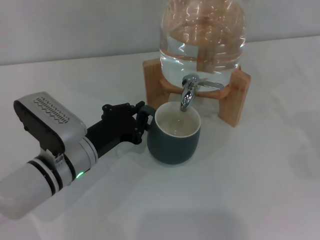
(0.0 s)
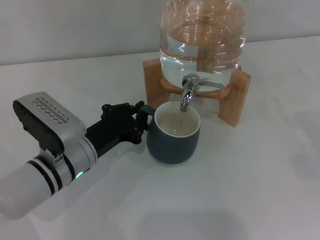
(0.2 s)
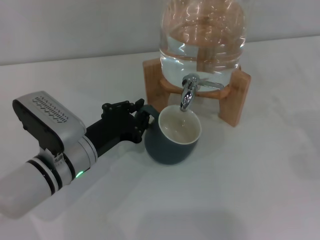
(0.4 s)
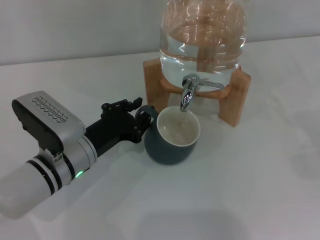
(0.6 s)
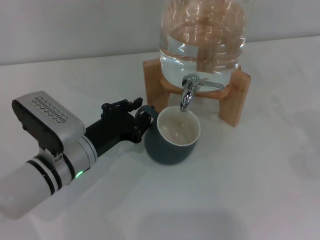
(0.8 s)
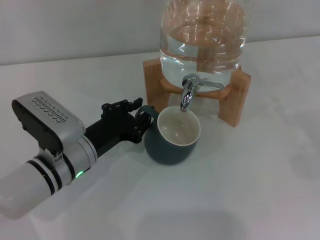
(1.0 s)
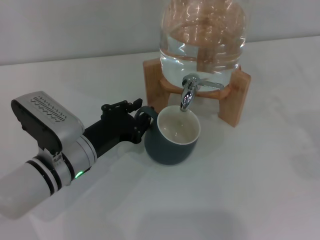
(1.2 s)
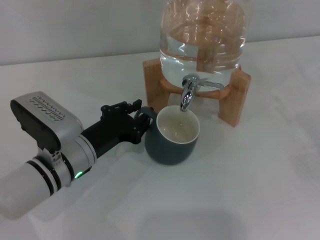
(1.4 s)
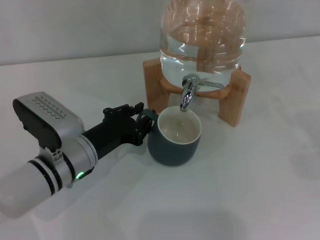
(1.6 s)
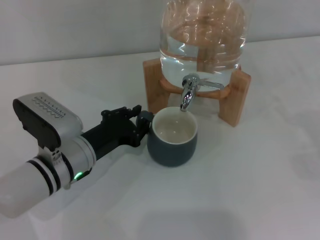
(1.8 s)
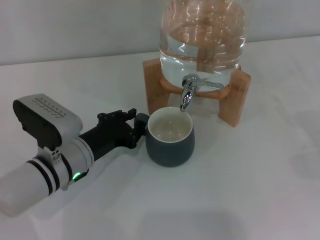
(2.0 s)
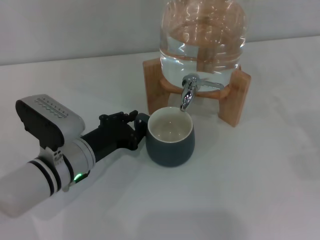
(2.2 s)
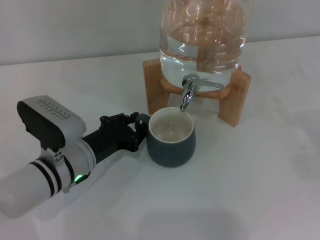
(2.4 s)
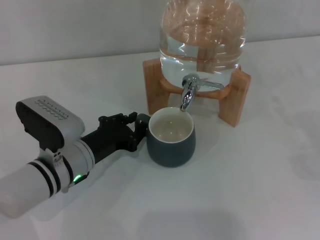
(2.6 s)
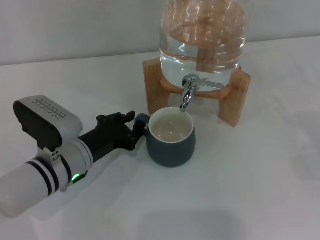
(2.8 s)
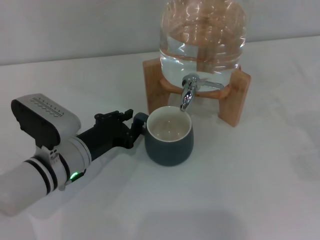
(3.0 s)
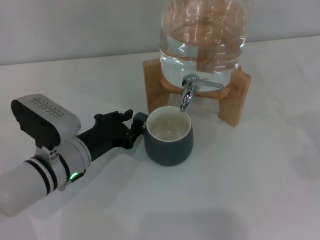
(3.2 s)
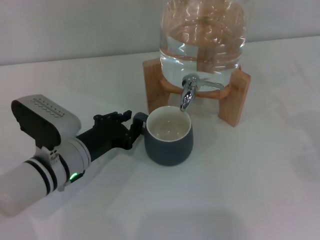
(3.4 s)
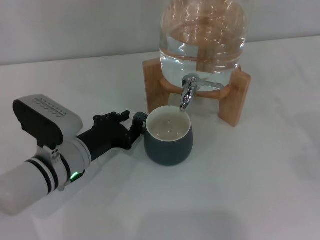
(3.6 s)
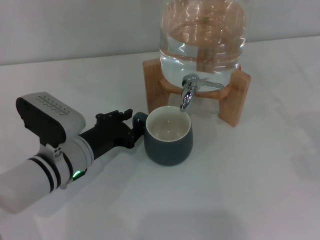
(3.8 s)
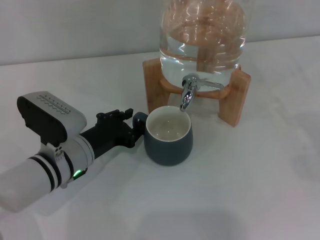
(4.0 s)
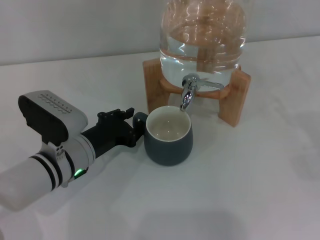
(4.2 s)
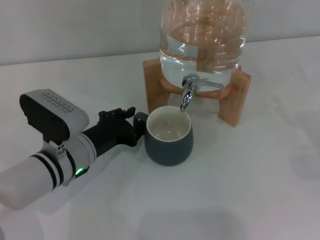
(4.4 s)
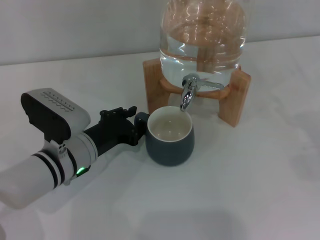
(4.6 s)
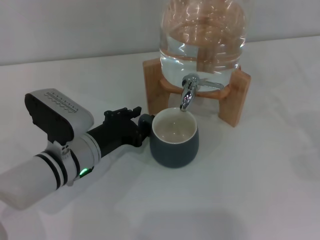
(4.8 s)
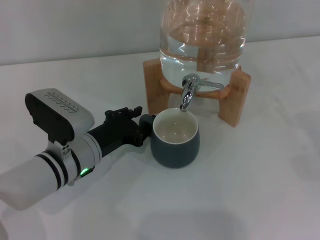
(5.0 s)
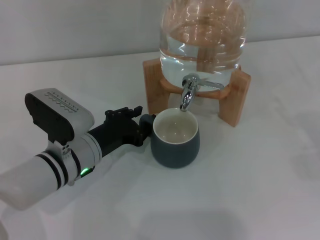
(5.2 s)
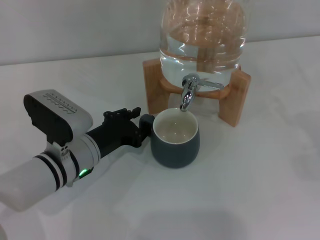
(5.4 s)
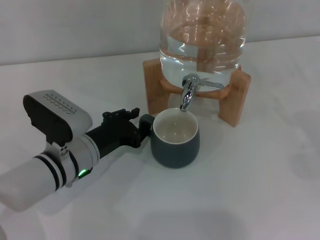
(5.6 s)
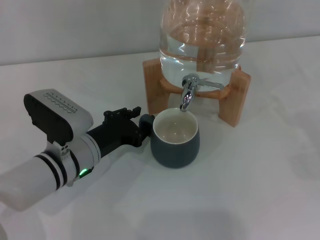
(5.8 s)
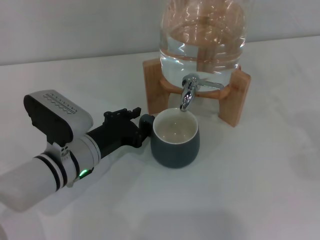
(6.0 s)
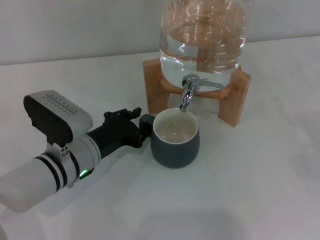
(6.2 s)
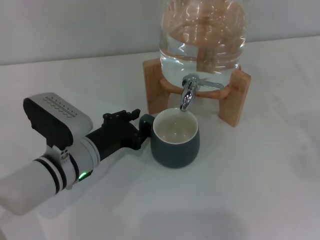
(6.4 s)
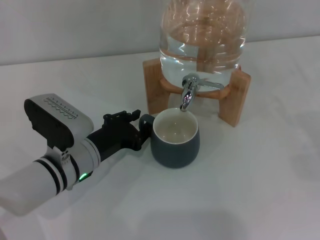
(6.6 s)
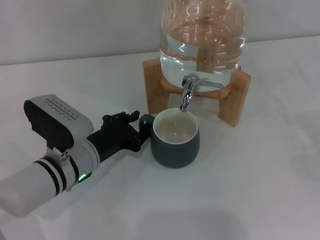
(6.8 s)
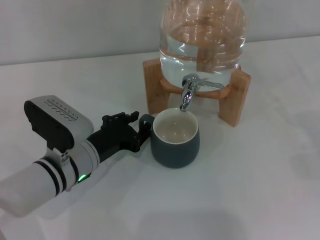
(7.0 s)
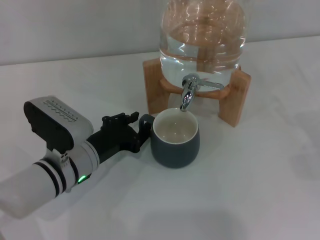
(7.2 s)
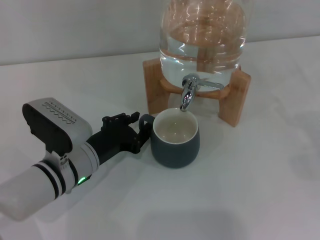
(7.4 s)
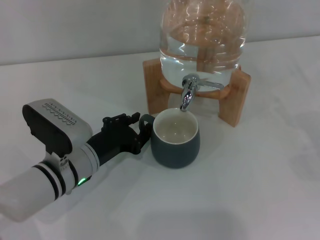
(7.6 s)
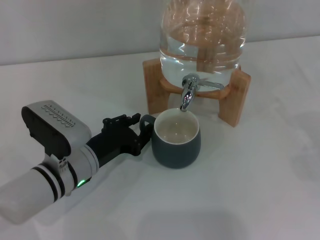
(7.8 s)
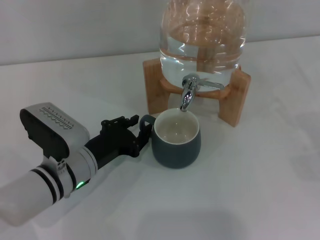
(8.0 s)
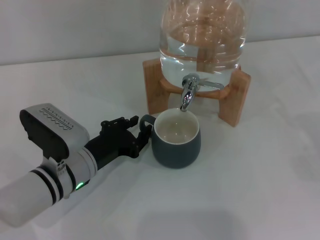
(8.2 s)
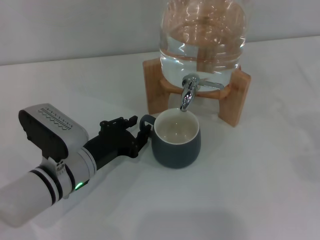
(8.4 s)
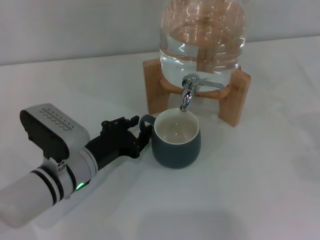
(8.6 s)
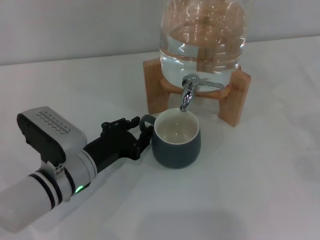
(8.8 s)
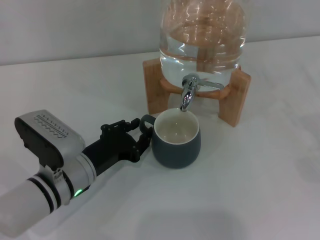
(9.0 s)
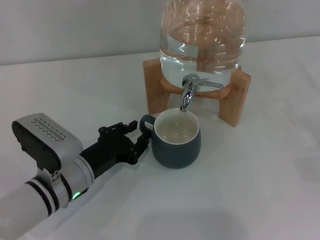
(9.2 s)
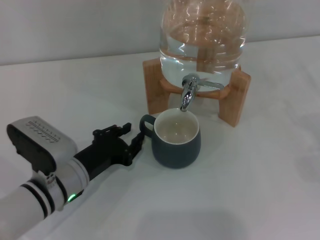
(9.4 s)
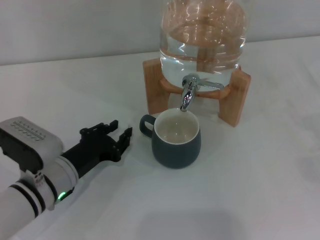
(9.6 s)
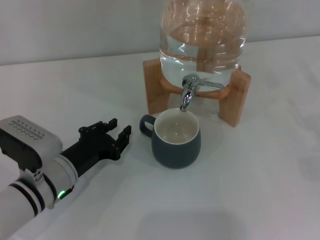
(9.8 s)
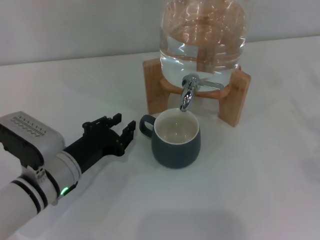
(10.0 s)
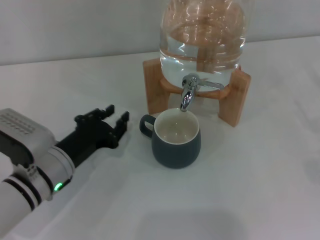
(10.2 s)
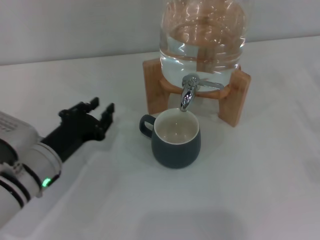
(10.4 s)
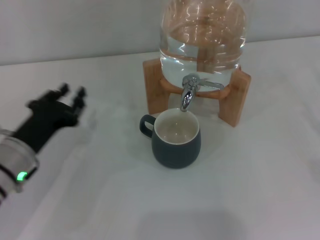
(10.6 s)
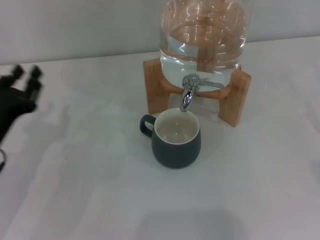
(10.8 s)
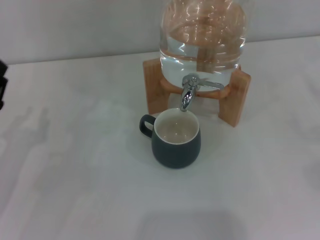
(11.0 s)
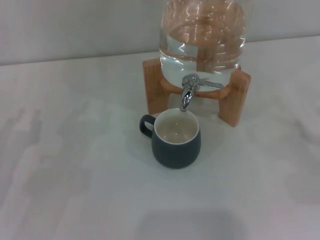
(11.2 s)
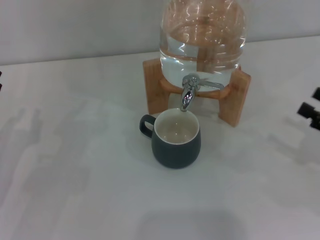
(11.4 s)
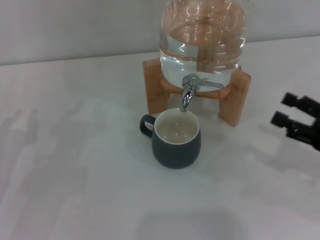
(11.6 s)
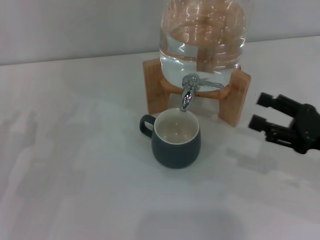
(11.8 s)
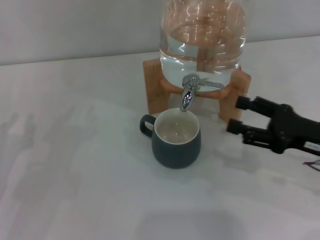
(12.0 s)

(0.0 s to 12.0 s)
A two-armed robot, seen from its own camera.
Task of the whole recording: the left gripper pick up the black cup and place it horizontally under the faucet, the right gripper turn on the faucet to fill the cup, and then turn off the faucet.
Step, 0.0 s - 10.2 s: Move the cup beneath the water dispenser nozzle with the left gripper.
0.0 s - 3.0 s: The grippers make only small movements.
3.0 s - 4.4 s: Both grippers stay about where they are.
4.4 s - 6.0 s: Both grippers stay put.
6.0 s - 7.6 s: Both grippers stay about where they are.
7.6 s - 10.4 s: The grippers make only small movements.
10.4 s - 12.0 s: Both grippers move to the left, approximately 15 cm.

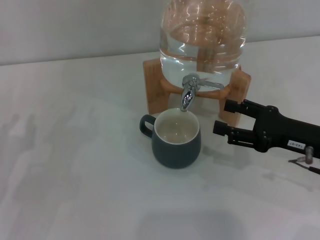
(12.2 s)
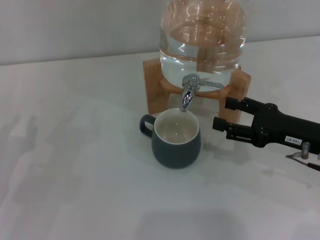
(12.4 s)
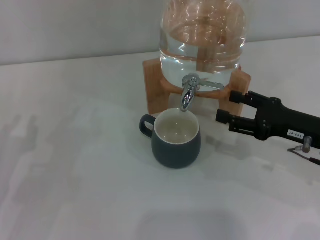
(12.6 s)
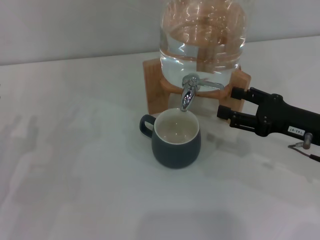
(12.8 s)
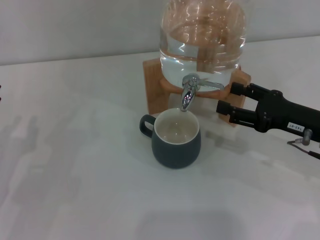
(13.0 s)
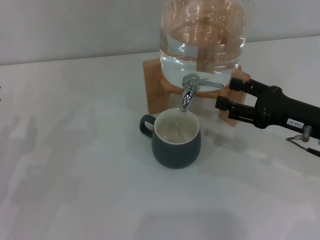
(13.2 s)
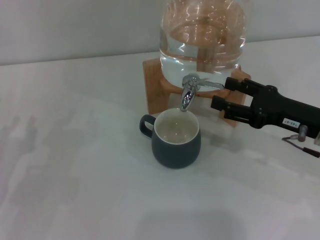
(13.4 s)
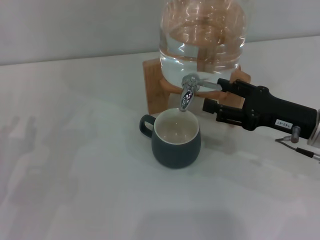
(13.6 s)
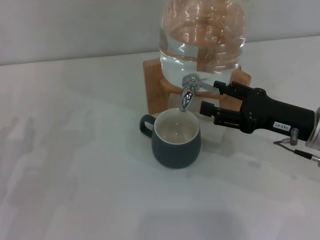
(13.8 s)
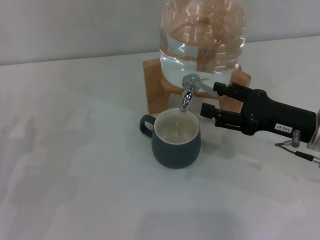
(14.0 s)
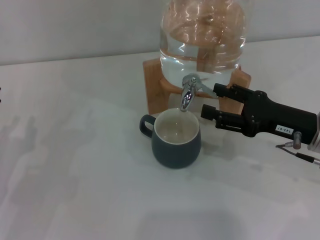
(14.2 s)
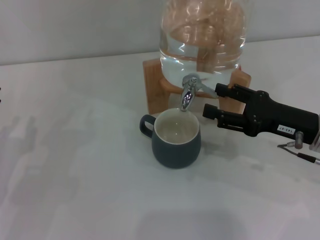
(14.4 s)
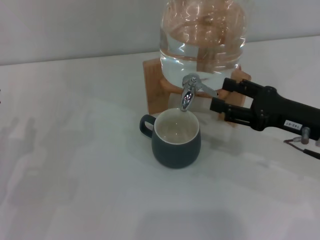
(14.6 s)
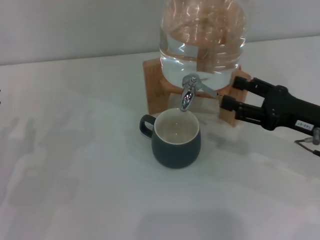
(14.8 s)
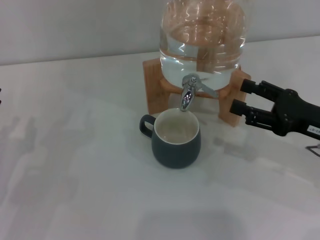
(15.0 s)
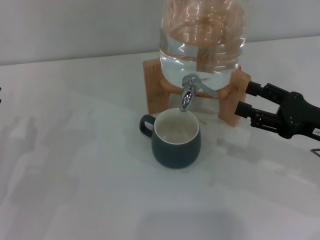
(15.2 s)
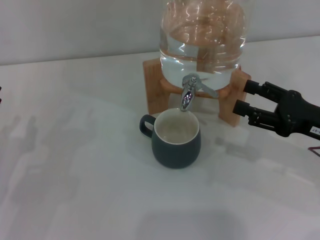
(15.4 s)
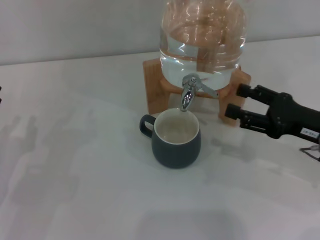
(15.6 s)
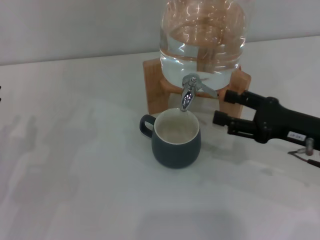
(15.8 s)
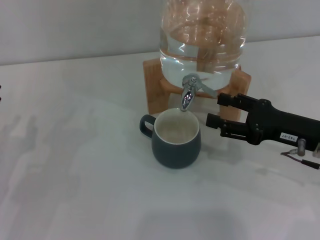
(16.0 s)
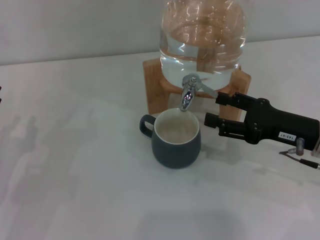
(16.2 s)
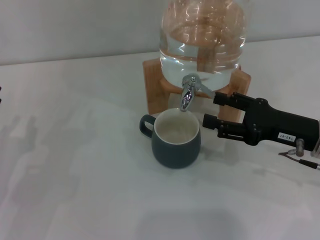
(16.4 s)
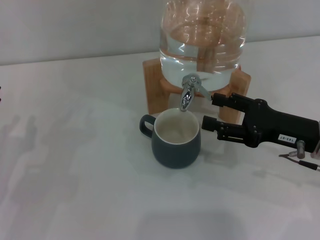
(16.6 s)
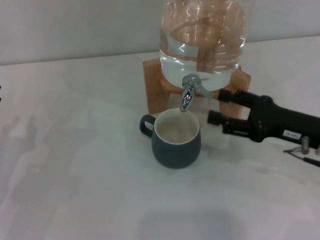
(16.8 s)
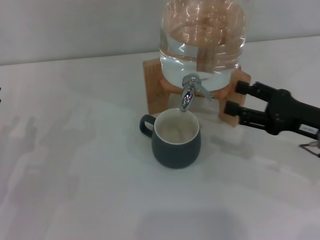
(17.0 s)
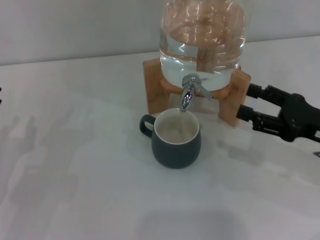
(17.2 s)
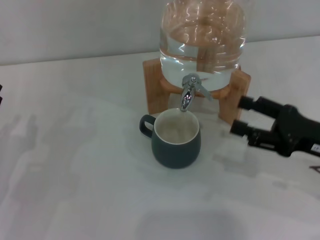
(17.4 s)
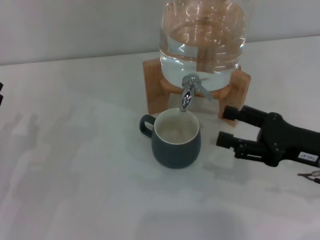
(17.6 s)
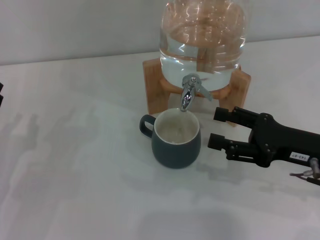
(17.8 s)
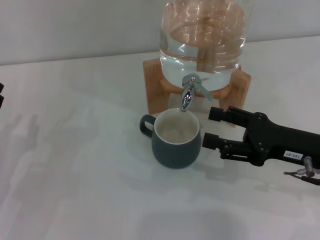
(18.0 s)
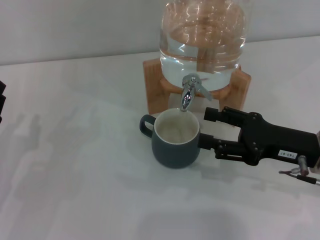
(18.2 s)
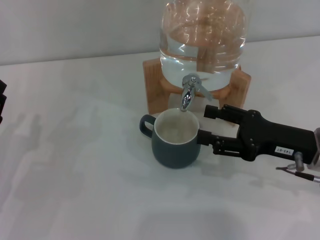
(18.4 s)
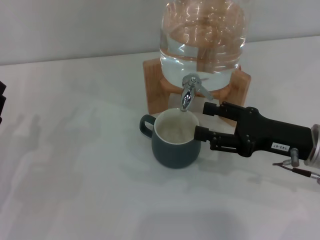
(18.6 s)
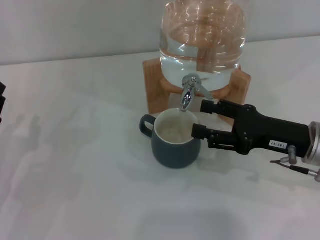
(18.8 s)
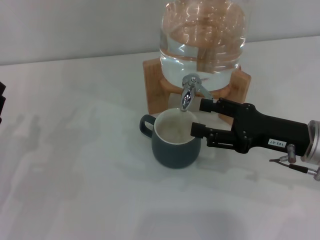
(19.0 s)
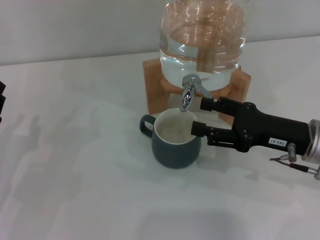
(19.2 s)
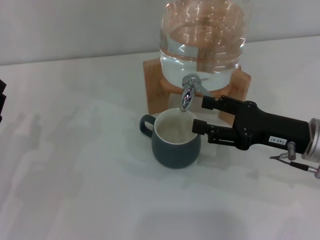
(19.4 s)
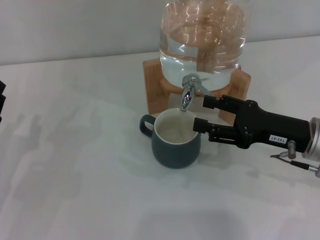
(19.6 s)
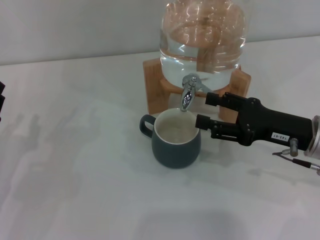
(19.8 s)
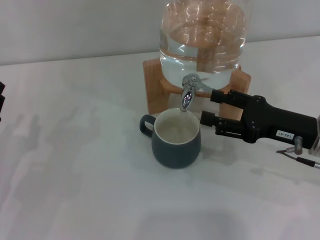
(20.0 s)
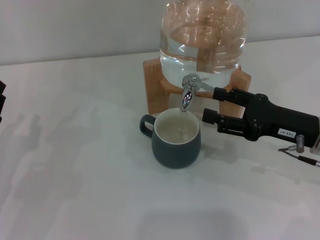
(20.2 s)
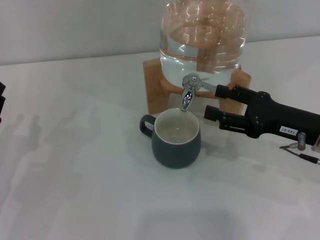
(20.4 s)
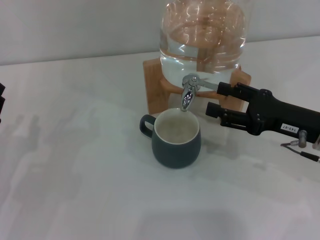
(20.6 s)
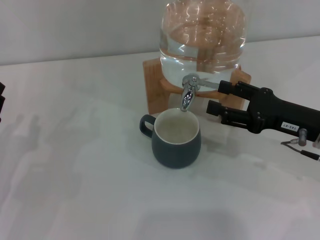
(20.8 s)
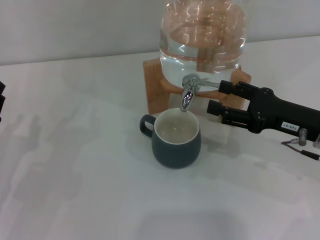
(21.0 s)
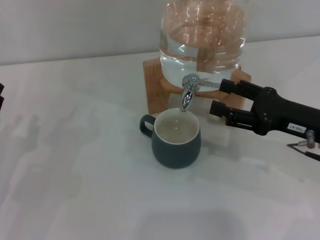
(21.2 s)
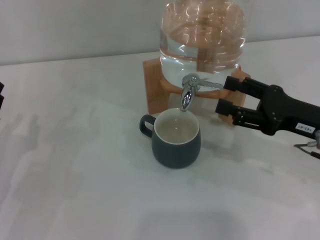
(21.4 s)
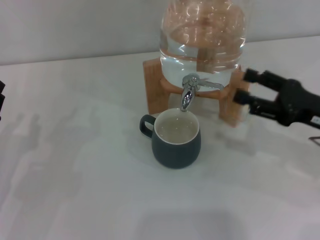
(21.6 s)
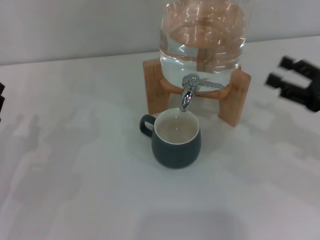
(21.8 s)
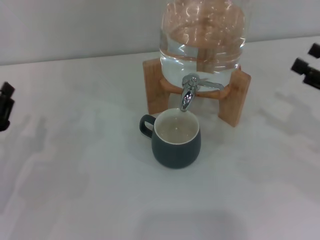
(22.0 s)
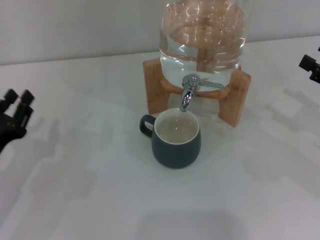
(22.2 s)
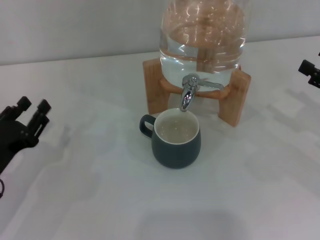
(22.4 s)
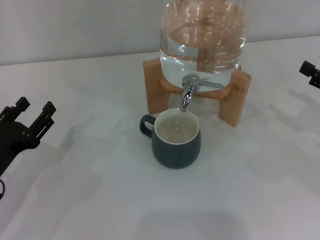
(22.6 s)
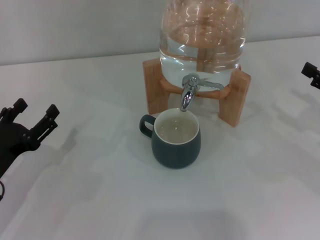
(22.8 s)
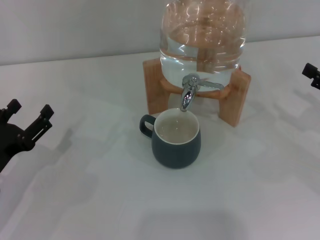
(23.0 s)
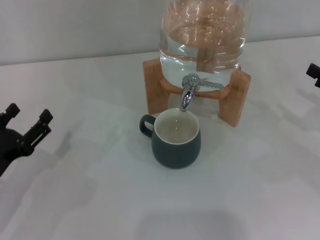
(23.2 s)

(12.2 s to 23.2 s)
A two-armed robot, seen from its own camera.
Task of the whole recording: the left gripper pick up the black cup and place it horizontally under the faucet, the right gripper turn on the faucet to fill the cup, and then turn off the faucet.
Step, 12.2 s - 18.6 s: Open the dispenser valve and fill the cup with water with the right gripper.
Step, 18.8 s - 21.4 s: Close the dispenser valve with the right gripper.
12.2 s - 21.6 s: The grippers move only a little.
21.6 s - 23.2 s: The right gripper moves to the right, approximately 10 cm; the left gripper opens its fingers.
